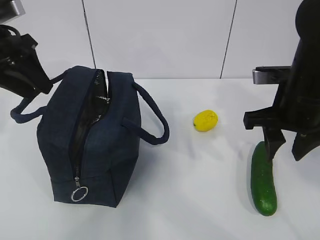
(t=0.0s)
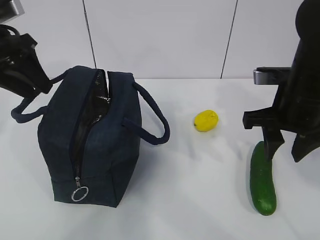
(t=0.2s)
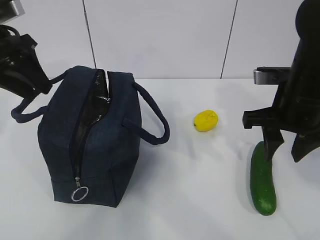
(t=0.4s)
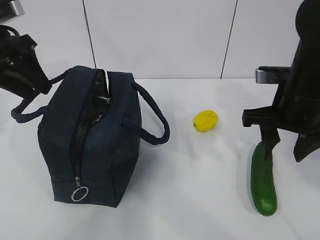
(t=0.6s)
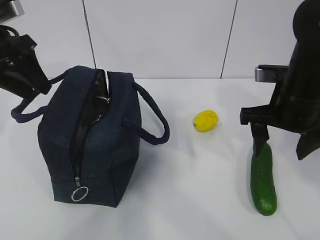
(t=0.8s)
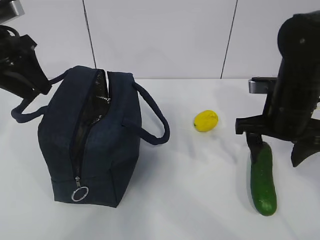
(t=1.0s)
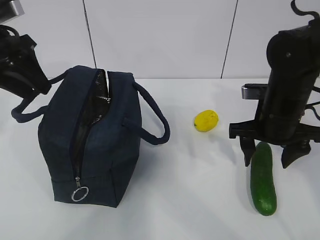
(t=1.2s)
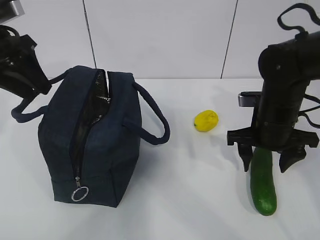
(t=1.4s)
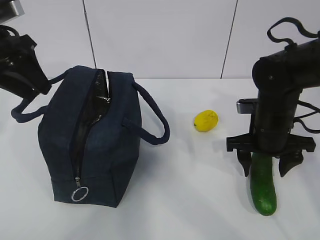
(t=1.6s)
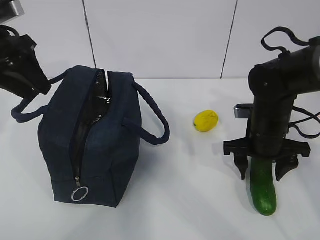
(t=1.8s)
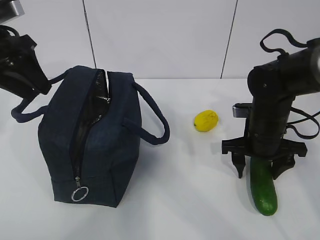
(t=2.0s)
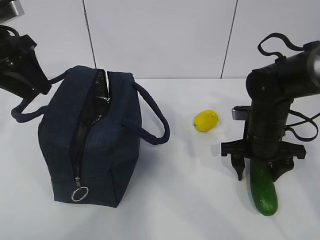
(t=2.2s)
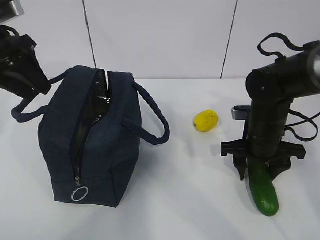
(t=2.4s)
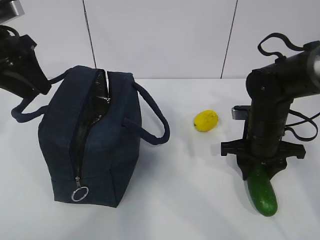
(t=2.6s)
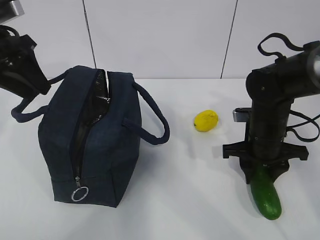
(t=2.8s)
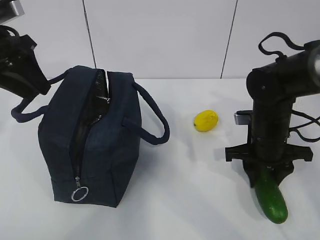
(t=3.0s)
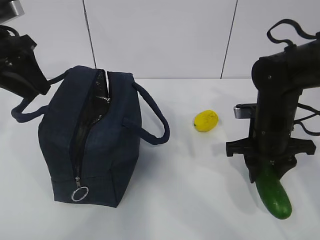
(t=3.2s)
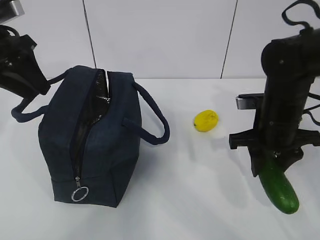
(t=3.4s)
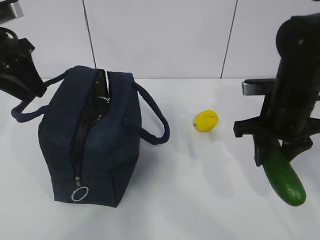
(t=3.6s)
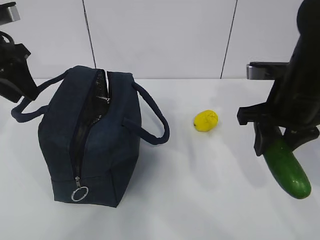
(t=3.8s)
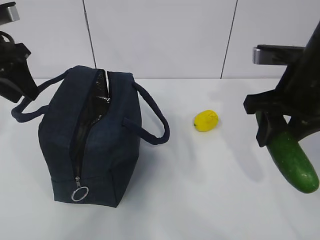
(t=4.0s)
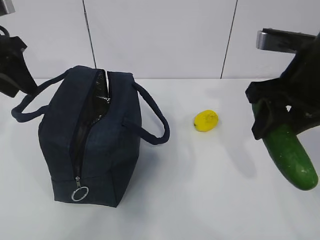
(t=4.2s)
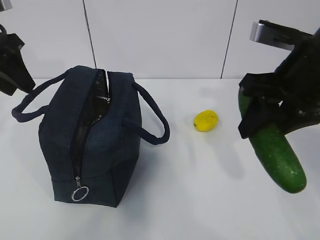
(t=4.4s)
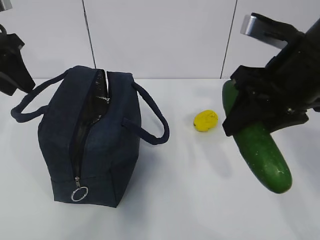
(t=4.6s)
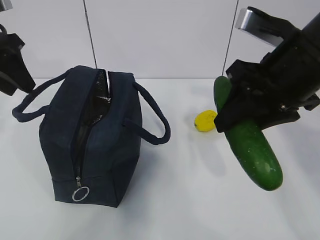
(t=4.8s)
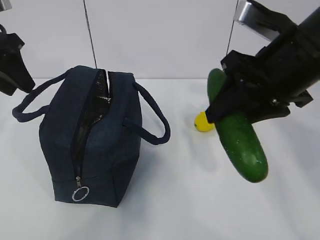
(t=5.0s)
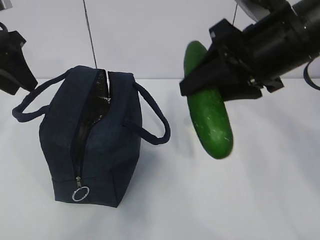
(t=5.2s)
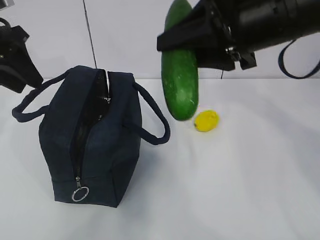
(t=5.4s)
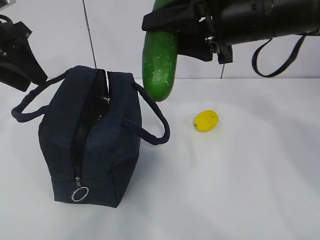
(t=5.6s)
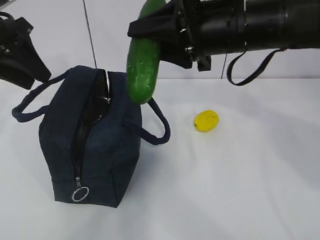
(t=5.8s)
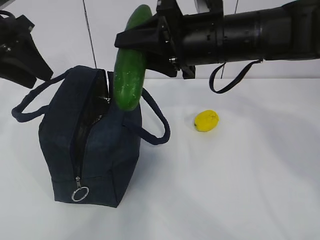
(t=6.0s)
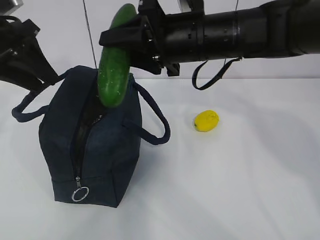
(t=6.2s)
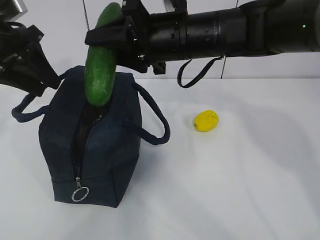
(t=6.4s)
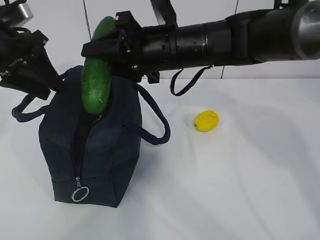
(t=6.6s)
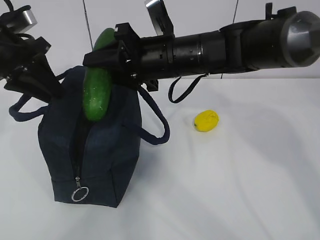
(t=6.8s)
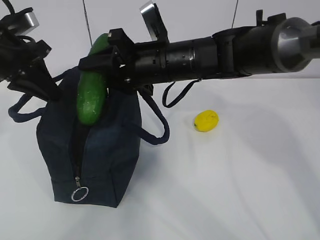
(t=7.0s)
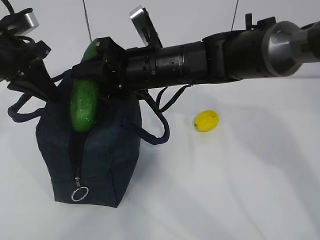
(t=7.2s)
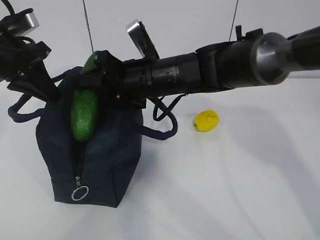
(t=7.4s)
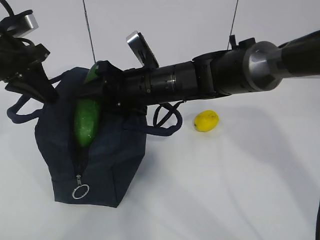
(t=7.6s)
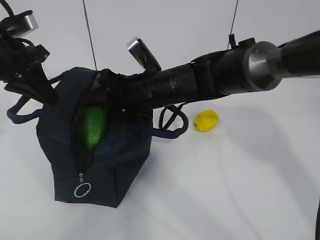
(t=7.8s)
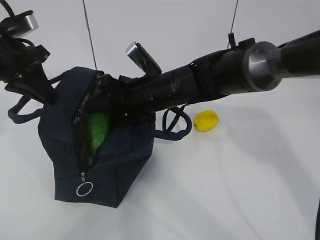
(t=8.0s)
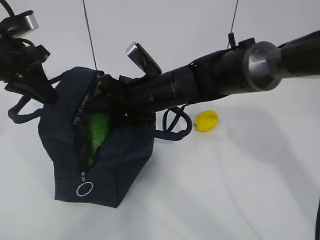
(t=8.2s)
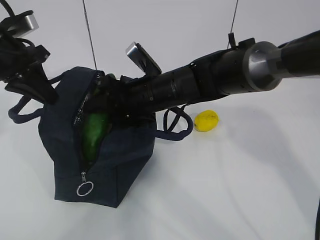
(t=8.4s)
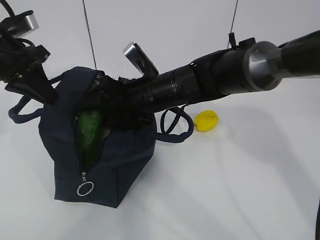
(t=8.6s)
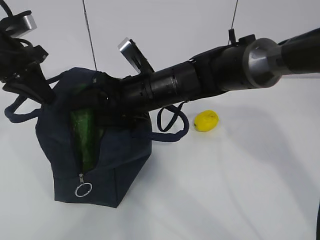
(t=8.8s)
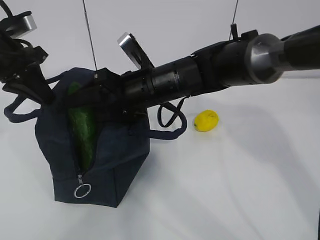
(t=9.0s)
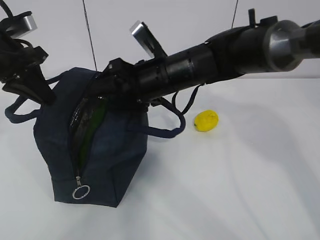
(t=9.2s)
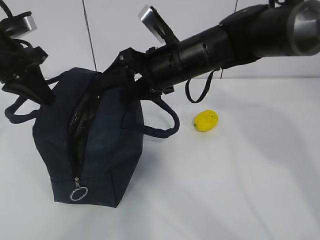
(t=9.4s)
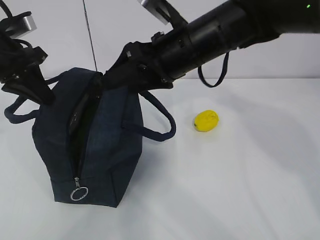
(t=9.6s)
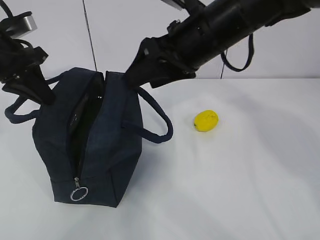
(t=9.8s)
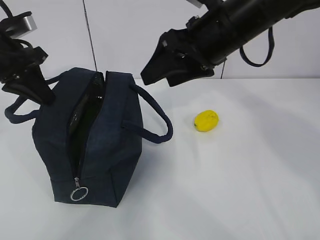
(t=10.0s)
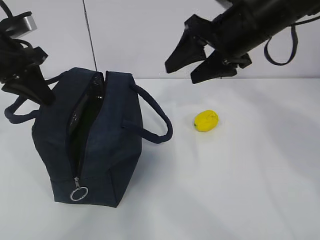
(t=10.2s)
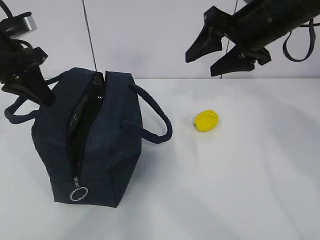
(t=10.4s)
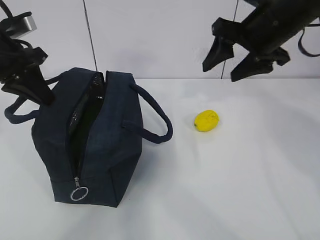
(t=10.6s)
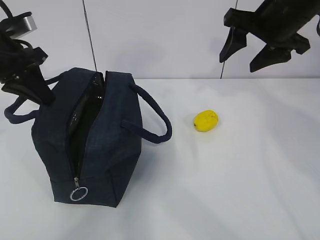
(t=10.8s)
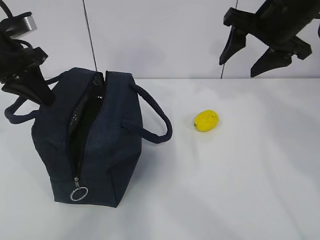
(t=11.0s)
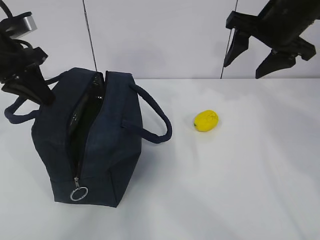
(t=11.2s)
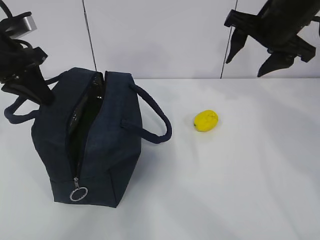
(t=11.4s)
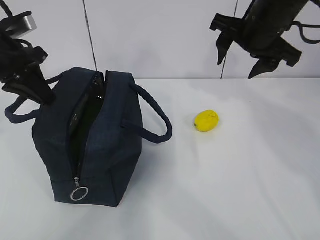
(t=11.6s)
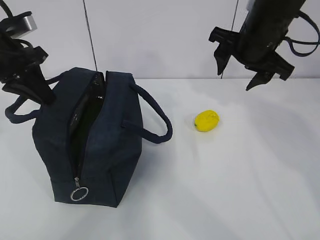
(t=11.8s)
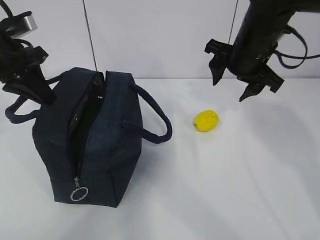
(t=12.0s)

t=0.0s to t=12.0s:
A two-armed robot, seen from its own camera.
Step, t=0.0s to t=2.8s: Place it into the bag with your right hand.
Step, t=3.2s to t=8.0s: Grab the lemon with your right hand.
t=0.0s to t=1.6s: The right gripper moves downward, some 10 cm.
t=1.6s to t=3.0s: The right gripper closes its fingers.
t=3.0s to t=4.4s: The right gripper travels upward by about 20 cm.
t=4.4s to t=6.0s: The right gripper travels to the left and forward by about 10 cm.
t=6.0s to t=7.6s: The left gripper shifts by roughly 5 cm, and closes up. The right gripper goes roughly 15 cm downward and to the left.
t=7.6s to t=9.0s: The right gripper opens.
t=9.0s to t=10.4s: The right gripper moves to the right and upward, roughly 20 cm.
t=10.4s to t=12.0s: The right gripper moves downward, some 5 cm.

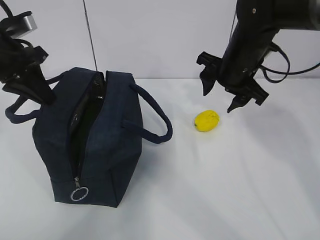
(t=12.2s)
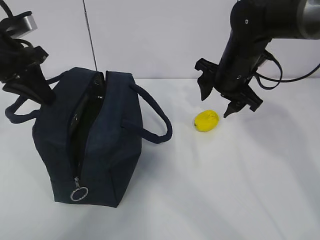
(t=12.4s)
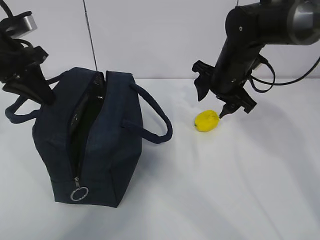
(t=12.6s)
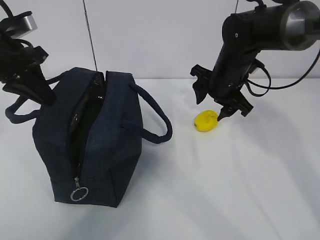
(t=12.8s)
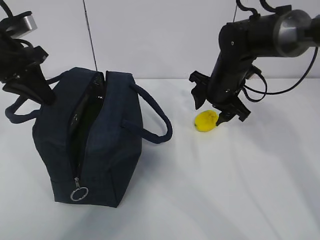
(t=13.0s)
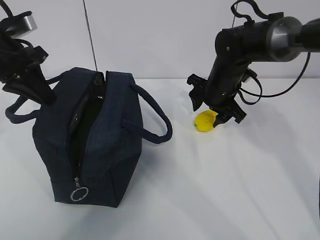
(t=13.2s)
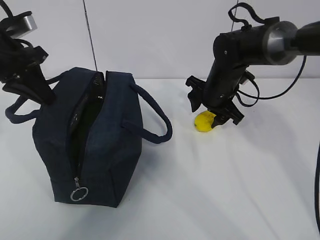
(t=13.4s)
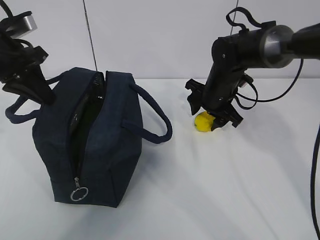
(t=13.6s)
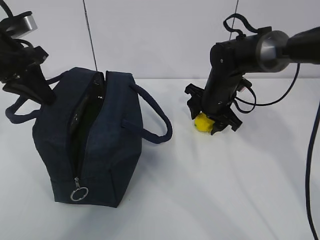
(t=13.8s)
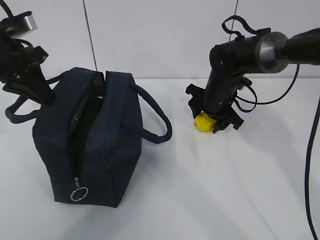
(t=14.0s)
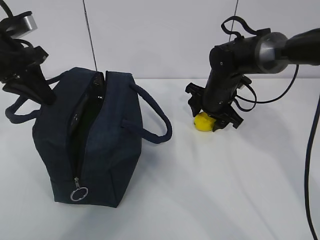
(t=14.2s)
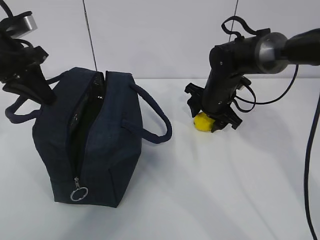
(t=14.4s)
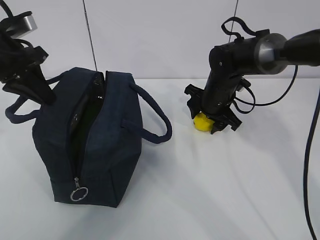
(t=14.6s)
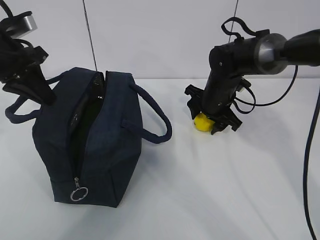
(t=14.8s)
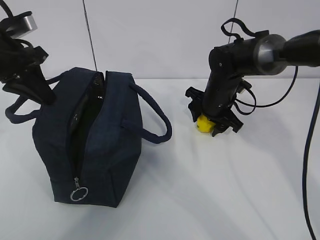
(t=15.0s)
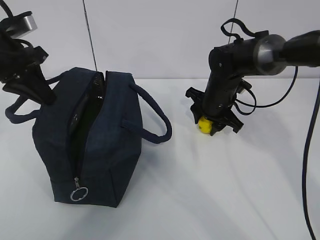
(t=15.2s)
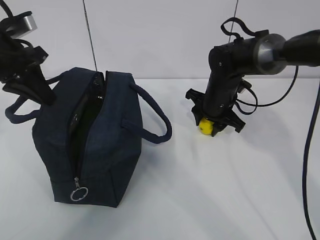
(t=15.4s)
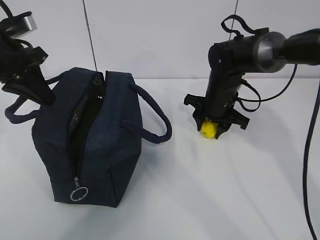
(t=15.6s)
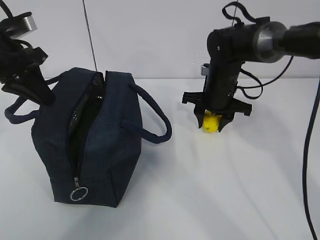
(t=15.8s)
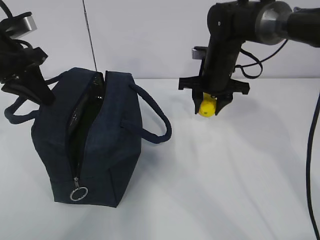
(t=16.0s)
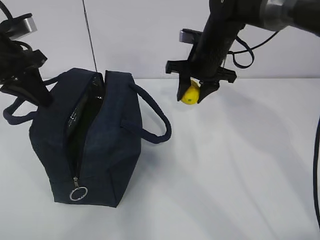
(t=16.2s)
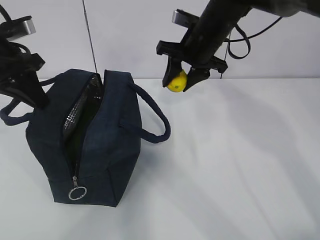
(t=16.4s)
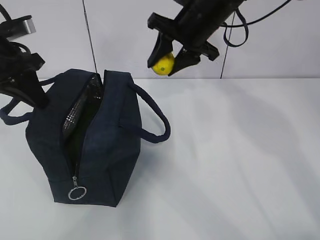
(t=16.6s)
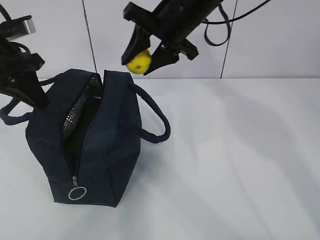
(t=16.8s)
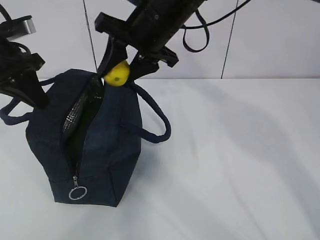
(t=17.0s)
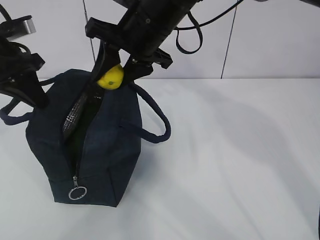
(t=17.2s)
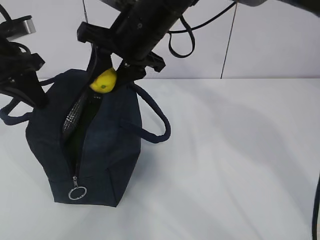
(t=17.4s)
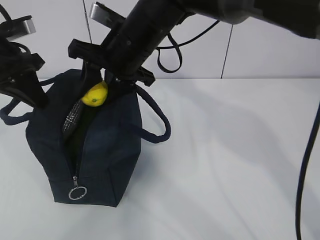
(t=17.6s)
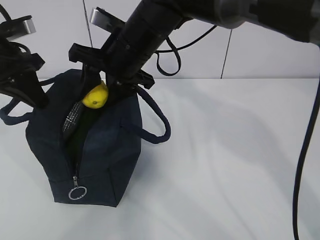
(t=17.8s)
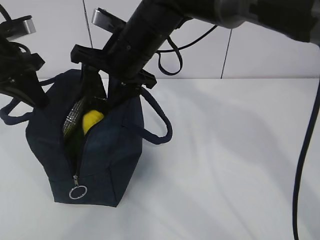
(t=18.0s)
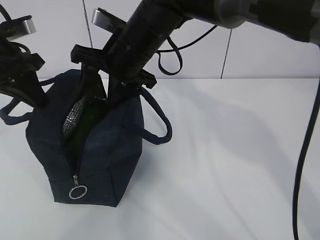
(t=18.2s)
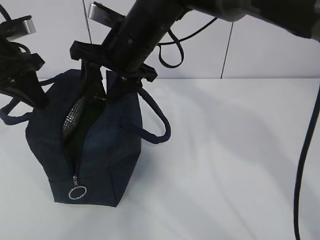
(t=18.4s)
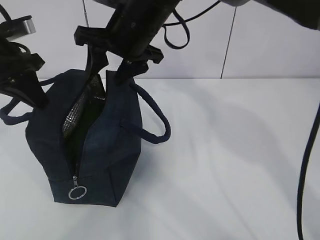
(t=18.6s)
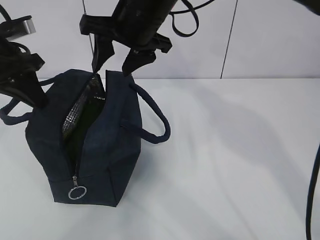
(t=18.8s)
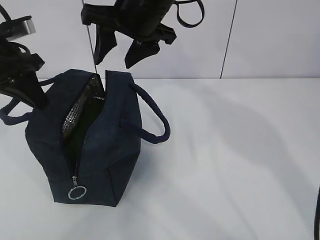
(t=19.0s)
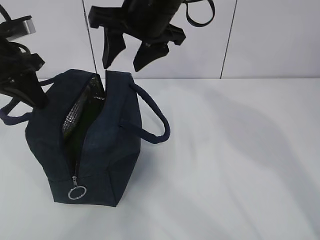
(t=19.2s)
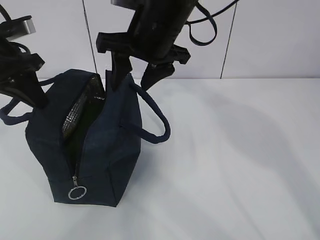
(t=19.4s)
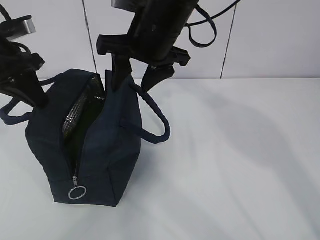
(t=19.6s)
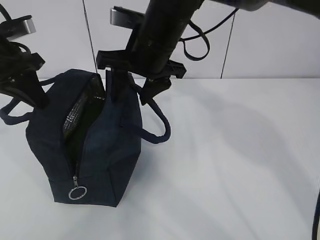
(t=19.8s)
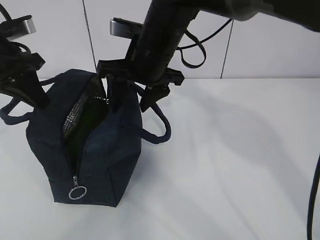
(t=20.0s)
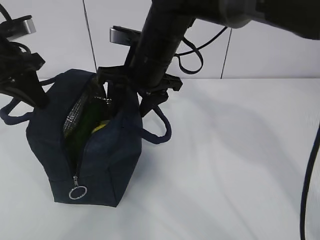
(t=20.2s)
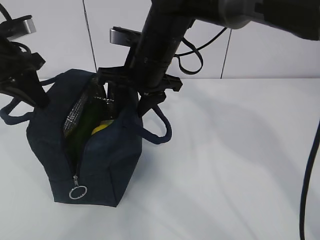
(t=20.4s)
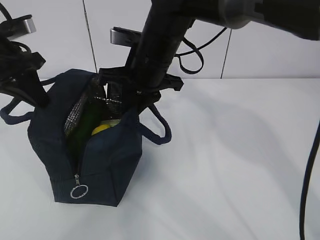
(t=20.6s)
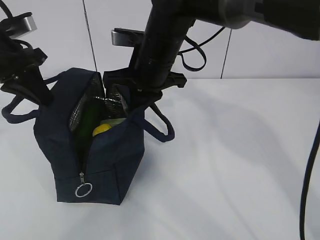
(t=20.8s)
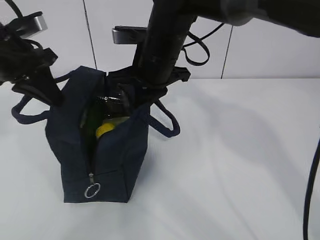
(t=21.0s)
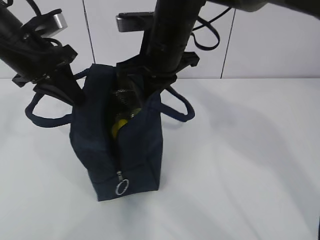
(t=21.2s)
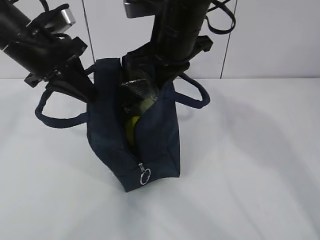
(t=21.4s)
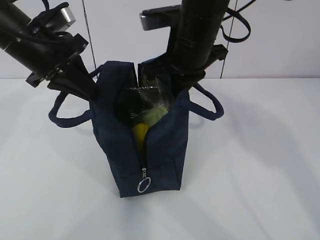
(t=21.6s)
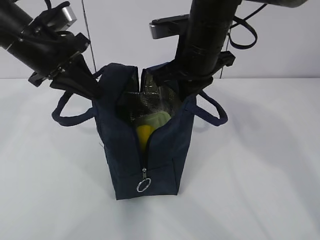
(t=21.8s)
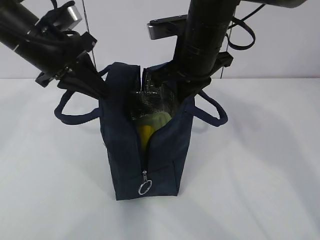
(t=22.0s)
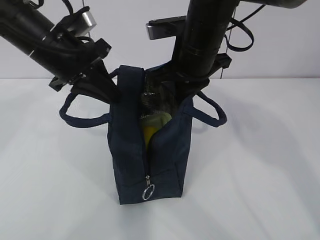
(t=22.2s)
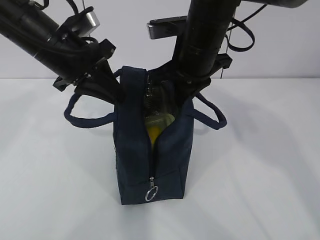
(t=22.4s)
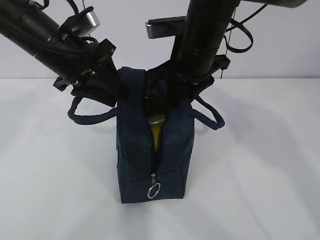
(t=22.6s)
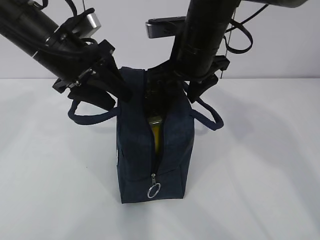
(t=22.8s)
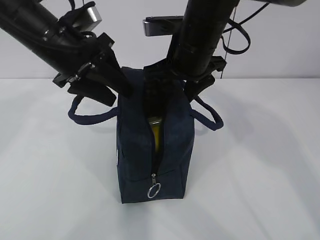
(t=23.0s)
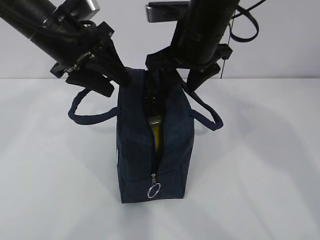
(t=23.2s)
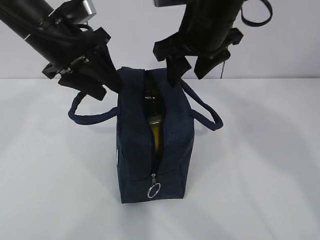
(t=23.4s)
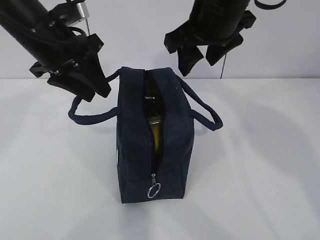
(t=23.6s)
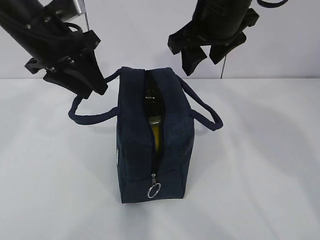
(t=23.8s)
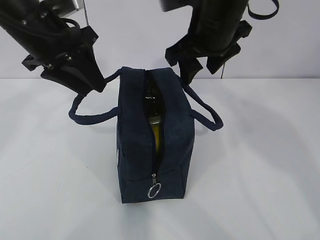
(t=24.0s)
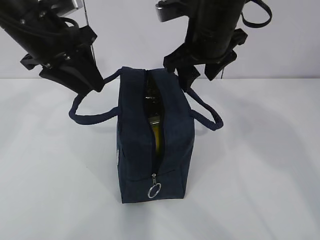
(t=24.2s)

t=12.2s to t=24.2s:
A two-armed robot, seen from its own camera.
Step, t=12.6s to t=14.0s: Move the lunch bag to the right.
t=12.2s to t=13.8s: The right gripper shifts roughly 10 cm downward.
t=13.8s to t=15.2s: Both grippers stay put.
t=15.2s to t=16.6s: The right gripper shifts roughly 15 cm upward.
t=16.6s to t=18.2s: The right gripper travels to the left by approximately 10 cm.
t=19.8s to t=21.2s: The right gripper closes. Meanwhile the left gripper shifts approximately 5 cm to the right.
t=21.2s to t=22.6s: The right gripper opens up. The left gripper heads to the right, covering approximately 5 cm, and opens its fingers.
